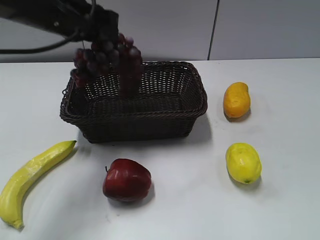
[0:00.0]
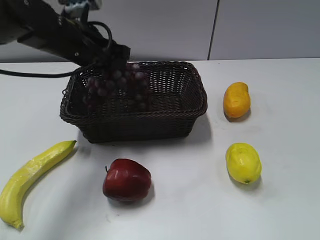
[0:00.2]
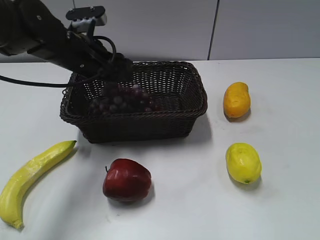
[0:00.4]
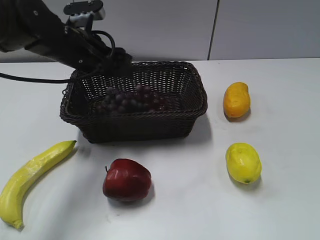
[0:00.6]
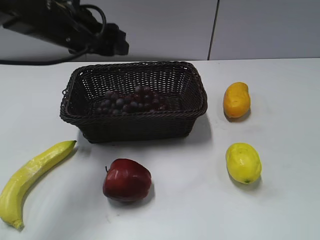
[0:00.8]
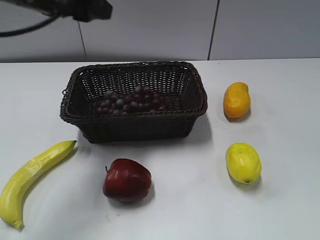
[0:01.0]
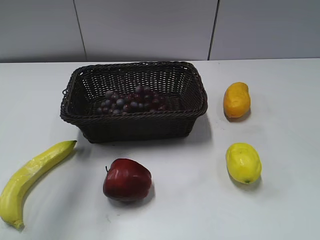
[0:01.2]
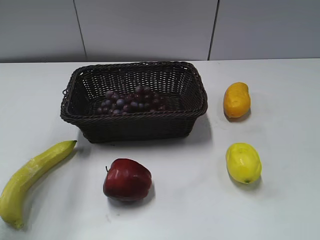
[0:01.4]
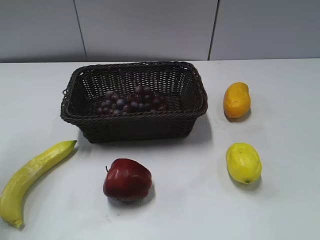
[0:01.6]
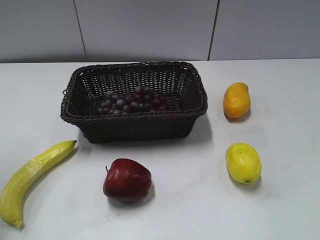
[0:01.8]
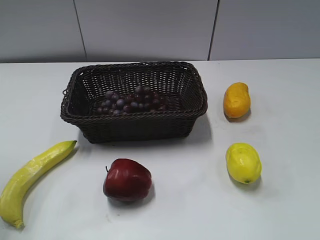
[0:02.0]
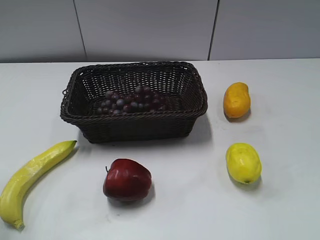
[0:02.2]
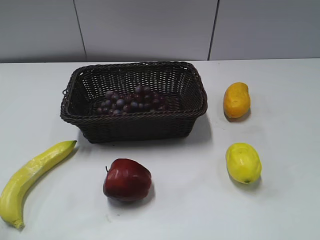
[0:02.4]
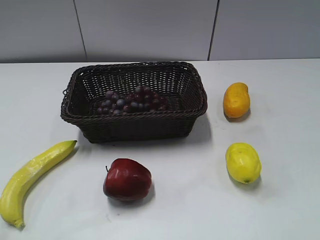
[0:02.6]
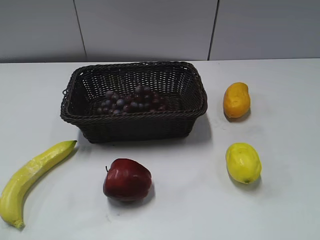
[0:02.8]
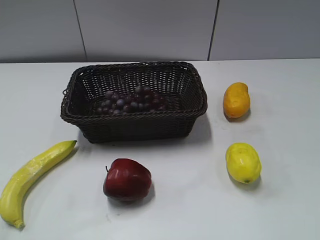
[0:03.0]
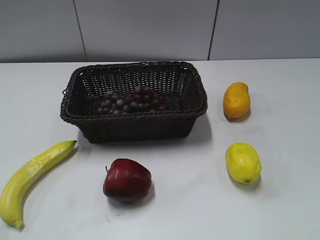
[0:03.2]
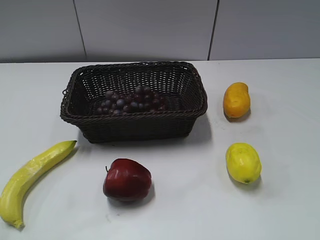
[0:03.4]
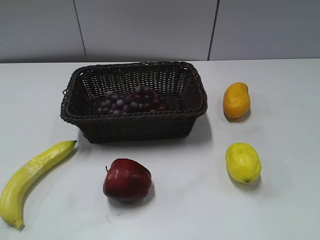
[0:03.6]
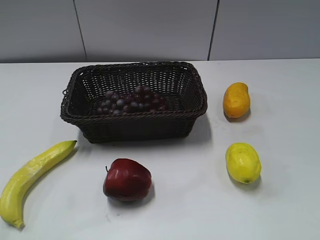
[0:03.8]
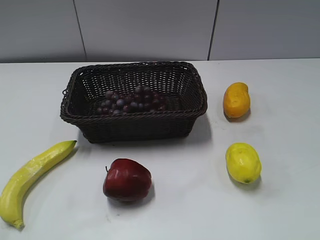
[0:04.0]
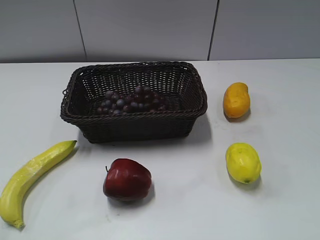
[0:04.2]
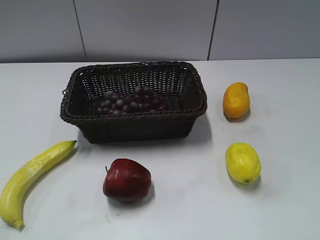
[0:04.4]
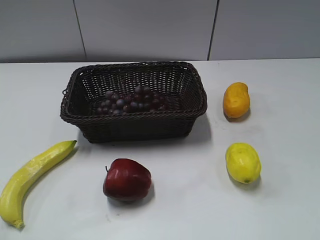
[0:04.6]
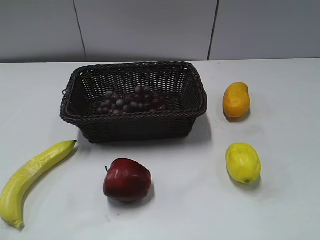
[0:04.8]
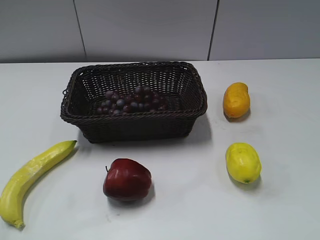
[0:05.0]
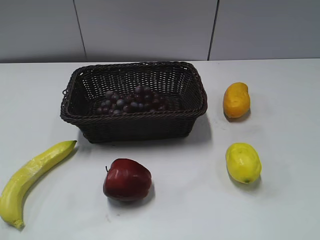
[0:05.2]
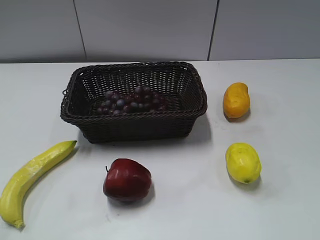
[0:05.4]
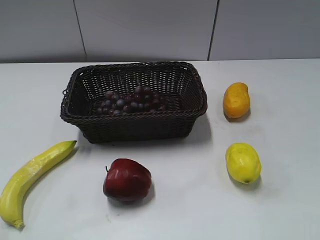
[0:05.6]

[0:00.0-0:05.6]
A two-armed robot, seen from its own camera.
0:00.0 to 0:01.4: The left gripper shifts about 15 cm to the left, upward and backward, and opens up.
0:01.4 to 0:02.8: The left gripper goes roughly 25 cm backward and downward.

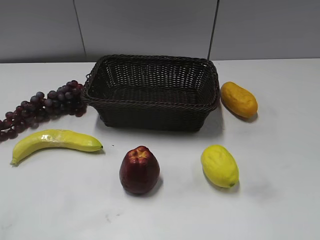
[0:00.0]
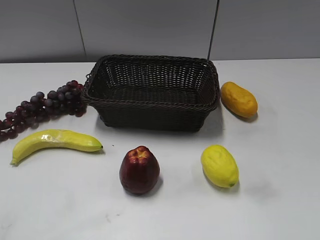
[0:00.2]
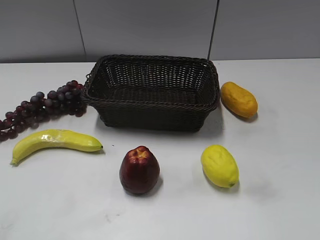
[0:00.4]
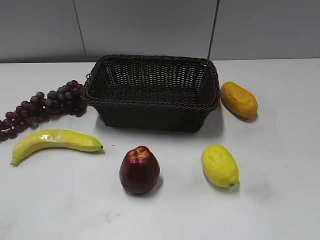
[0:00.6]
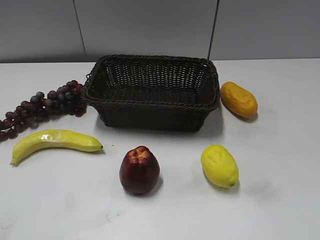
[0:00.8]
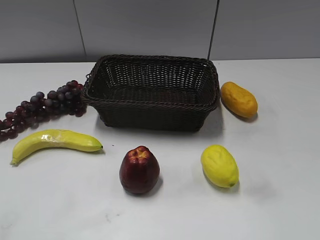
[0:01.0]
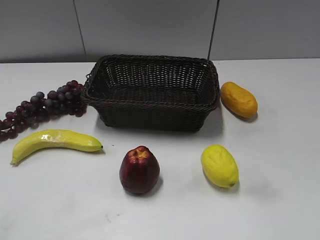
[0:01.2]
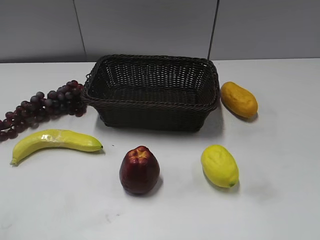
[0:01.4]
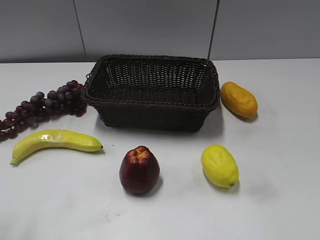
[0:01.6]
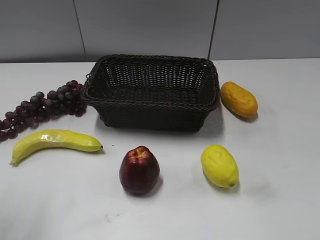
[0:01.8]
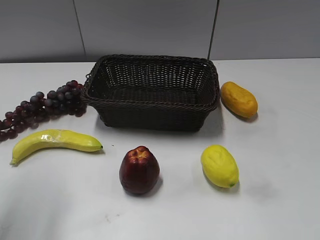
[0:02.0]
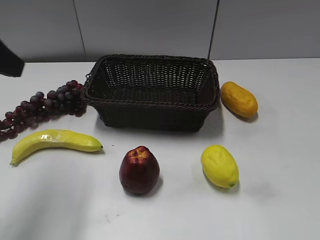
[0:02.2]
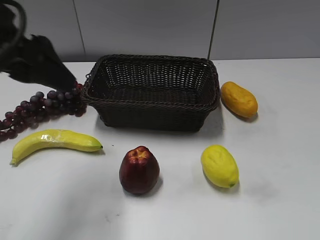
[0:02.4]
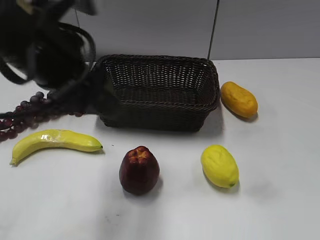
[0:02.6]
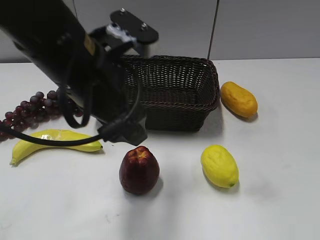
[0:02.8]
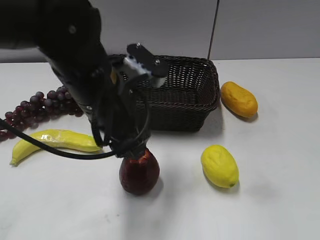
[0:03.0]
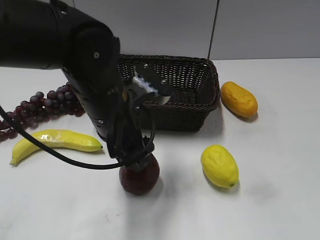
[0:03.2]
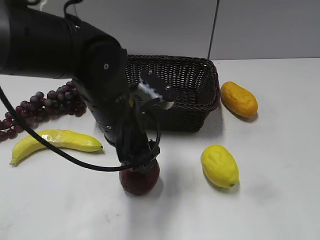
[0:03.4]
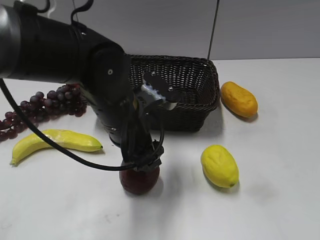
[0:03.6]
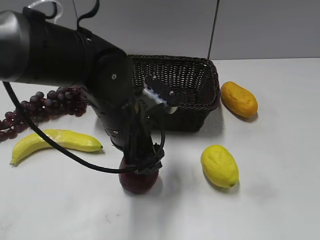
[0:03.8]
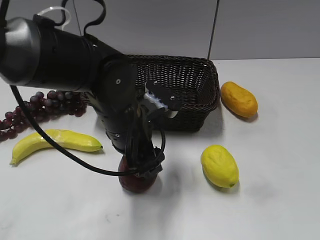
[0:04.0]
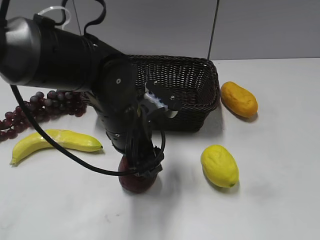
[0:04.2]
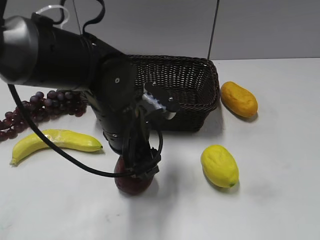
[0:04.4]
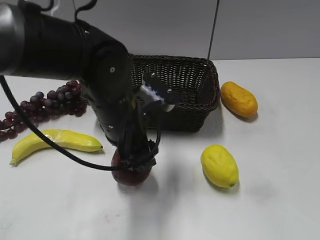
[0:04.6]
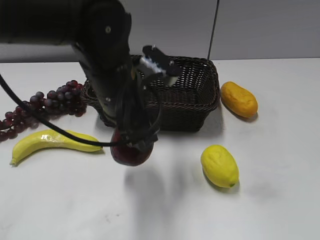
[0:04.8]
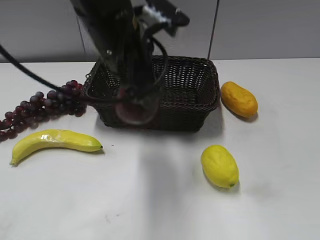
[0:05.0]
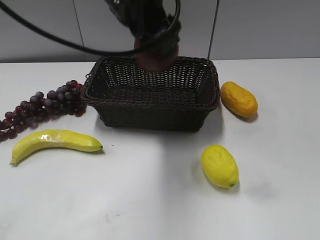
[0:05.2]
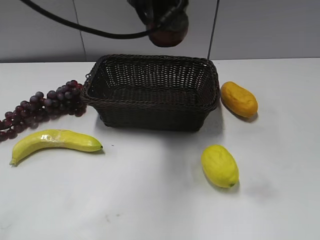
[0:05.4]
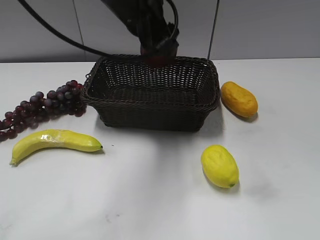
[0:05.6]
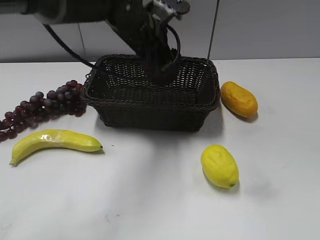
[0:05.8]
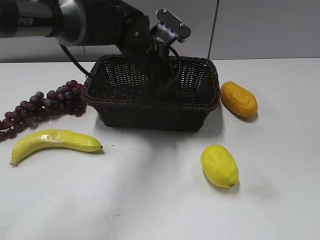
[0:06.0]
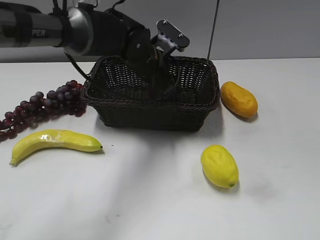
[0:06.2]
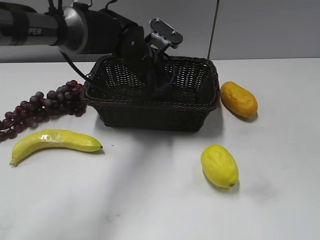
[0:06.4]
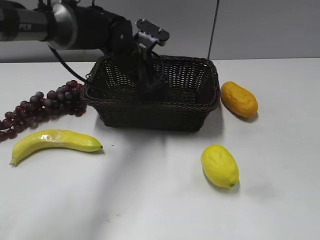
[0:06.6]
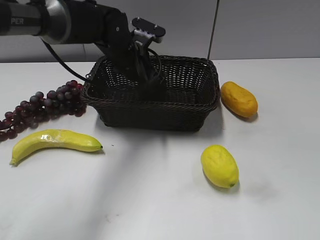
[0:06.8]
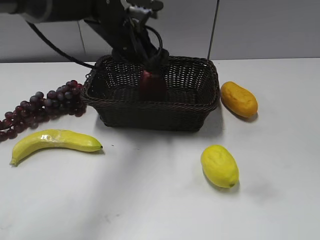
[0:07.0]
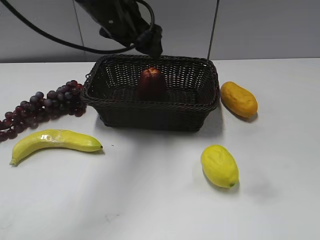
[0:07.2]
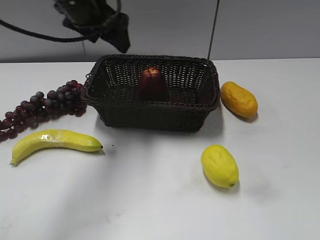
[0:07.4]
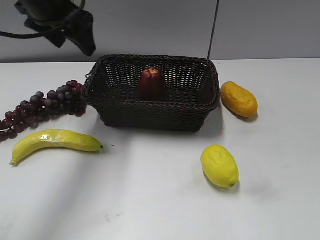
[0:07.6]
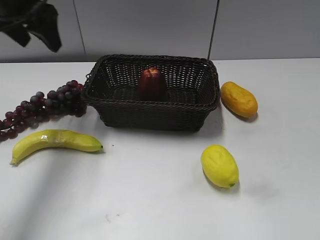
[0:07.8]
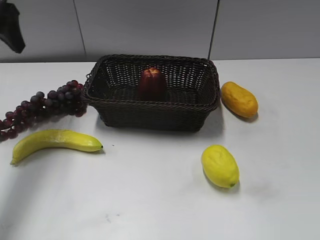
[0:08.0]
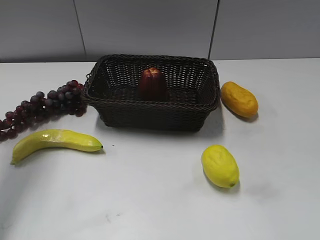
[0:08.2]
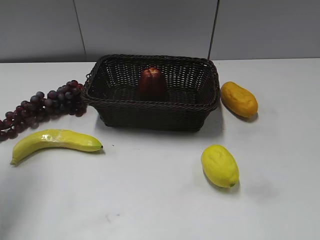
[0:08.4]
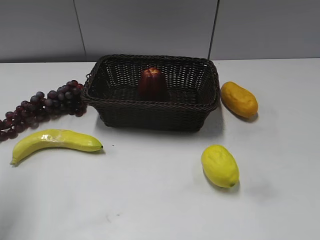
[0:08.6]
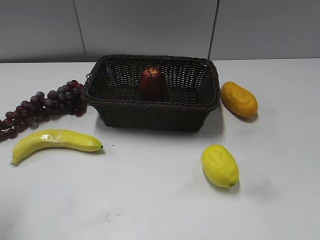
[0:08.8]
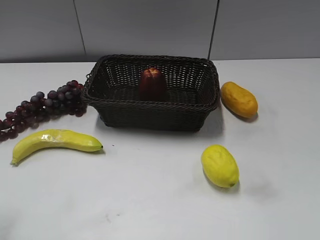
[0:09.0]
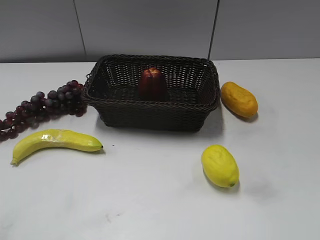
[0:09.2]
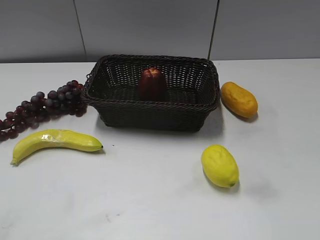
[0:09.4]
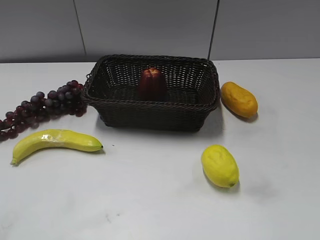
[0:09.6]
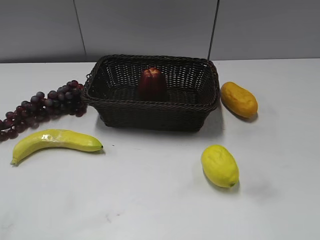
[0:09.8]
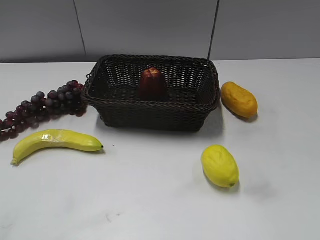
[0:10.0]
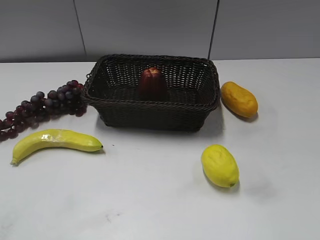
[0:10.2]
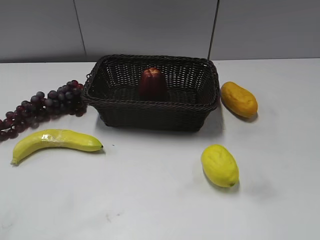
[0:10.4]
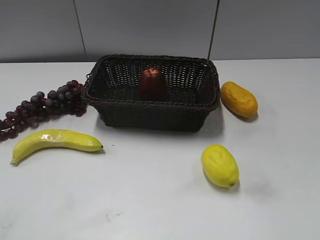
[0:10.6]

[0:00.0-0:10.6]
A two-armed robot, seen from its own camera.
Step, 0:02.2 to 0:04.2: Grasp the apple with left gripper.
Step, 0:04.4 to 0:06.6: Place the apple in the basket with left gripper.
0:01.6 to 0:03.0: The left gripper heads to the right, forward and downward, covering about 30 cm.
0:03.0 to 0:04.6: The left gripper ends up approximately 5 cm from where it was.
0:04.6 to 0:06.0: The left gripper is displaced forward by roughly 15 cm, and goes upward and returns, about 15 cm each way.
0:06.0 to 0:07.6: The left gripper shifts about 20 cm to the left and upward, and opens up.
0:07.6 to 0:09.0: The left gripper heads backward and to the left, covering some 30 cm.
